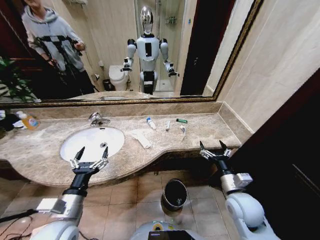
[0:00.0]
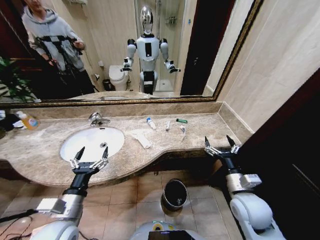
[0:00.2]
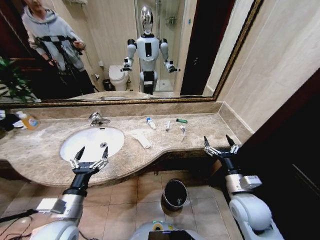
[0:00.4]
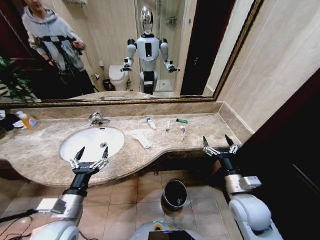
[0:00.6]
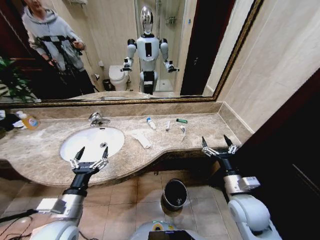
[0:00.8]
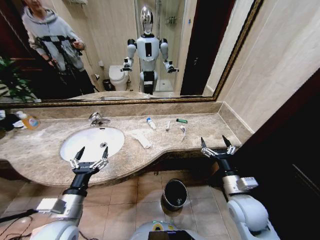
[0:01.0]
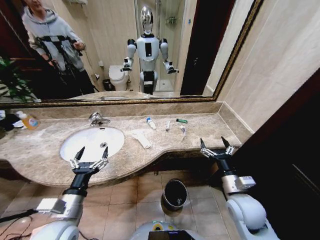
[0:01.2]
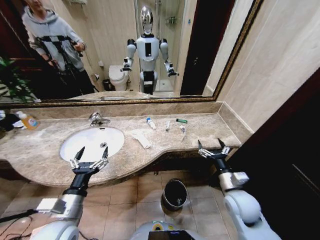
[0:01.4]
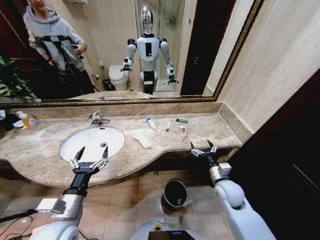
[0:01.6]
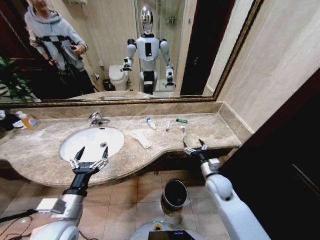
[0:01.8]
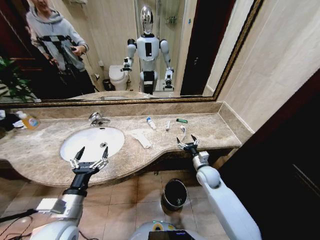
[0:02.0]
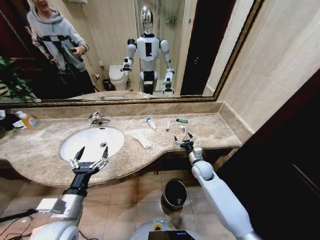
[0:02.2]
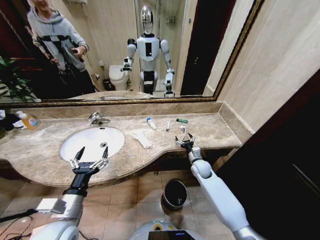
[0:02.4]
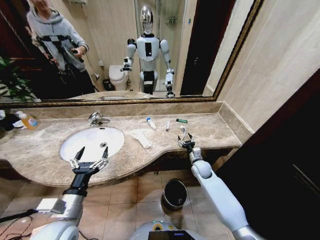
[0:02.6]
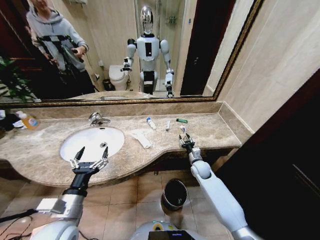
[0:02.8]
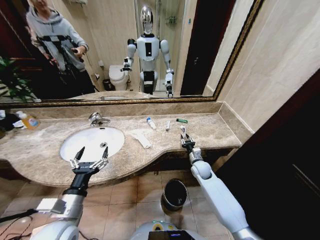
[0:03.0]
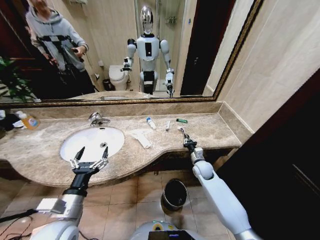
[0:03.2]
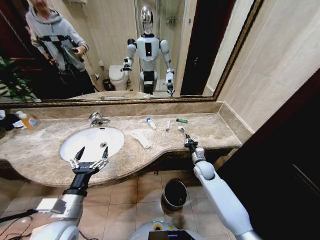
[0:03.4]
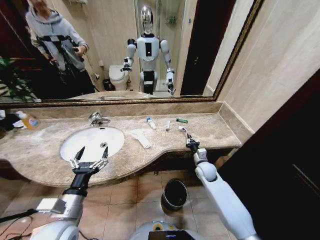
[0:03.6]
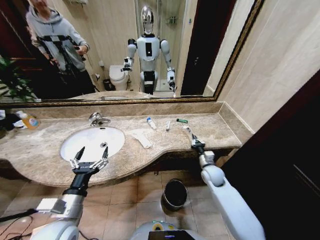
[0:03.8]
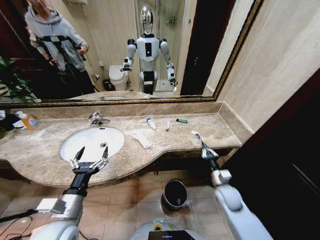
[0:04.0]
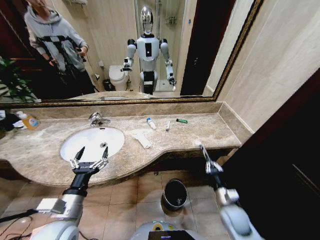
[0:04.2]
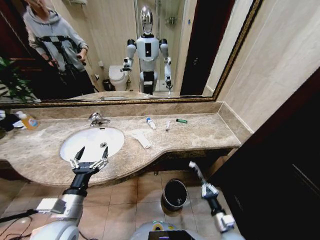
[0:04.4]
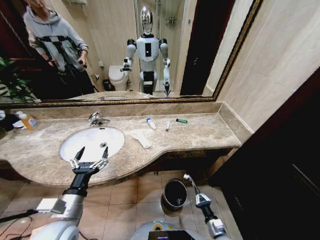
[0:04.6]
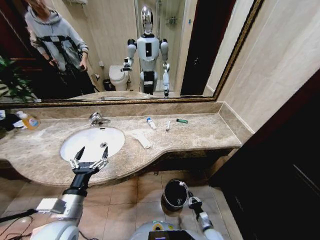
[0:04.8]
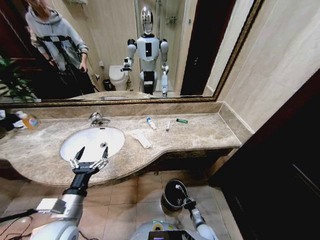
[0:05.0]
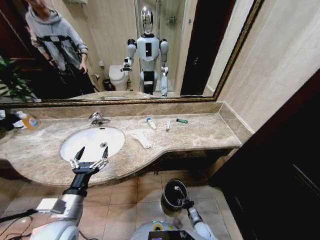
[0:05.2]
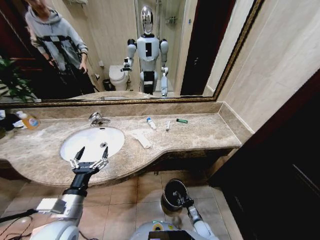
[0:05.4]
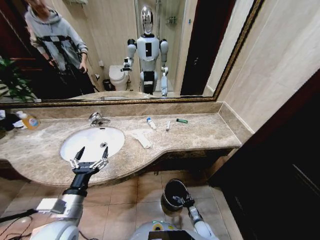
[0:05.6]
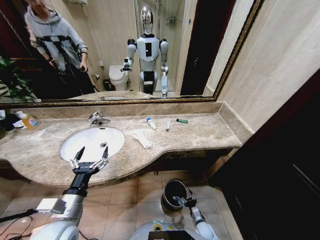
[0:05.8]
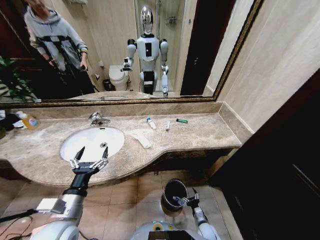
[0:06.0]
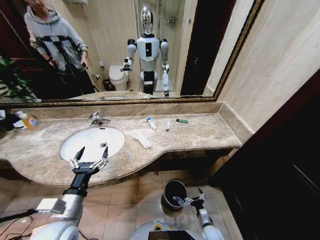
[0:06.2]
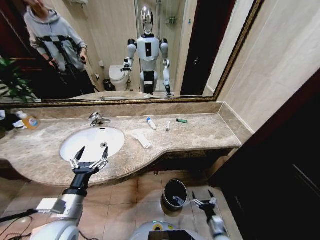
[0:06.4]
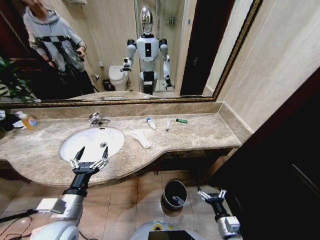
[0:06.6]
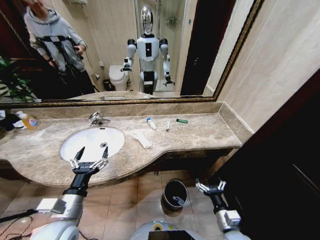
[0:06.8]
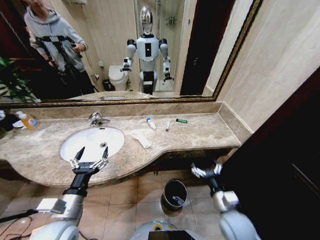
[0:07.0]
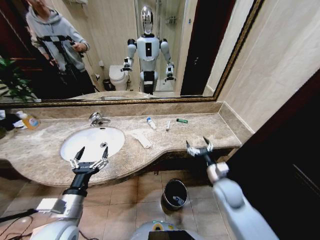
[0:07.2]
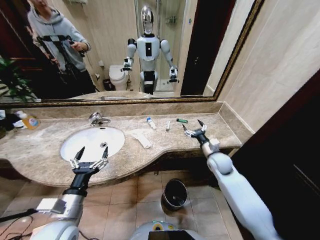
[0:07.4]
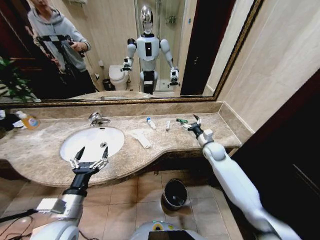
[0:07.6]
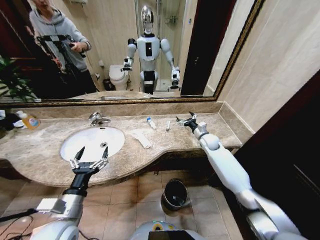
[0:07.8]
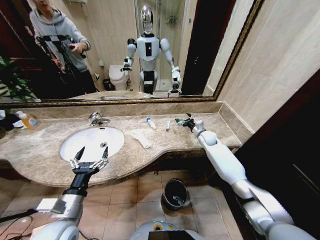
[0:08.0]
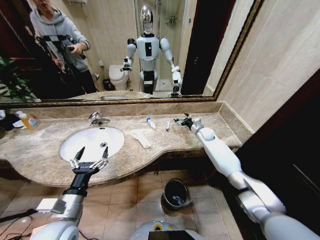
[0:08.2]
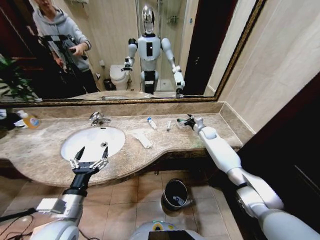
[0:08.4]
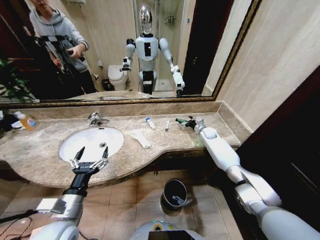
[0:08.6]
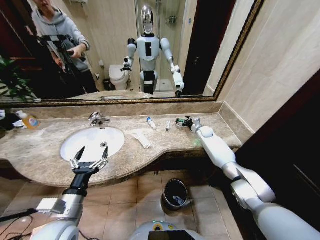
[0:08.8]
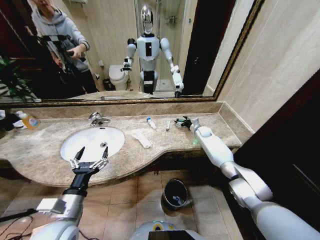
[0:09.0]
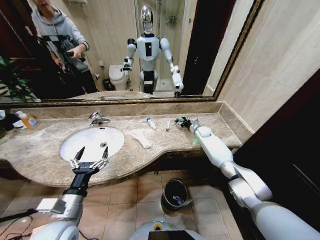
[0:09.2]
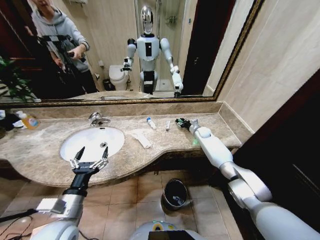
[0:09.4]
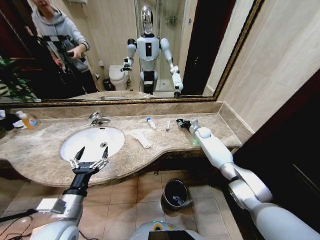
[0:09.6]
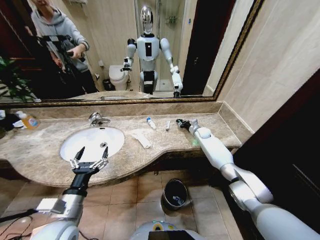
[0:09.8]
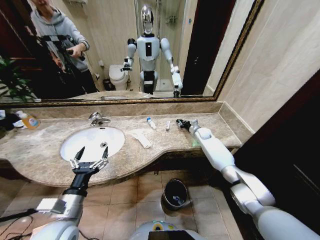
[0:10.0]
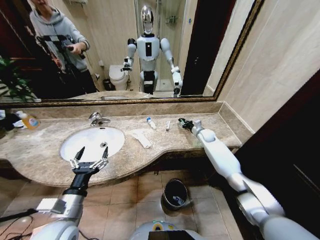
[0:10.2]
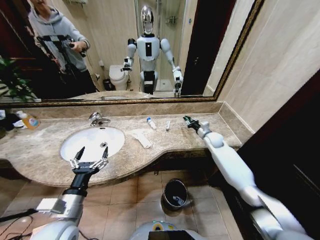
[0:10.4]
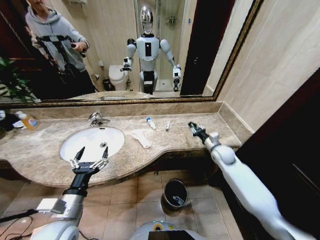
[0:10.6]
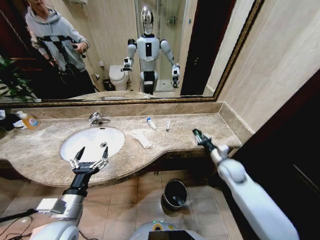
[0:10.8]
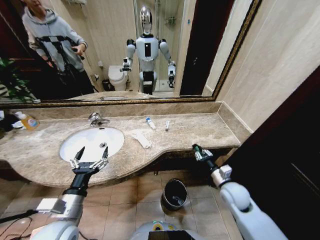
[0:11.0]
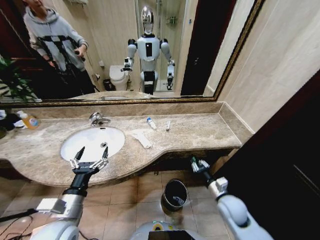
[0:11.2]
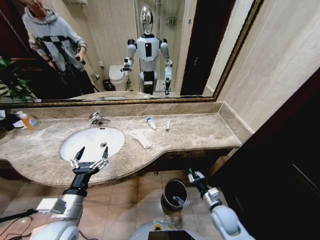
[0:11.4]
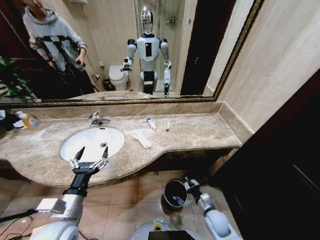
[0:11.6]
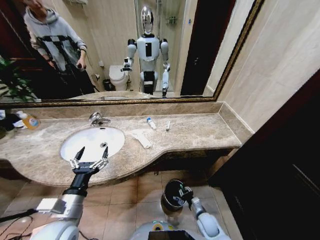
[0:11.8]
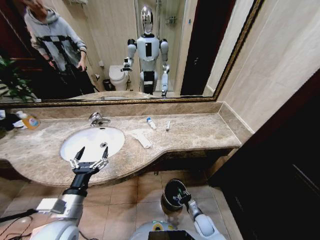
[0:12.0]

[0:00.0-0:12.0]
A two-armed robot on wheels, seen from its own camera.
Task of the whole recording: Pick up the trash from the sink and place it in the trash bin.
0:01.6 to 0:03.0: The right gripper moves forward and downward, roughly 15 cm, and closes.
0:03.0 to 0:04.4: The right gripper moves backward, some 30 cm, and closes its fingers.
0:04.4 to 0:06.0: The right gripper travels downward by about 15 cm, and opens up.
0:06.0 to 0:07.6: The right gripper is displaced upward and forward by roughly 40 cm.
0:07.6 to 0:09.0: The right gripper shifts approximately 15 cm forward.
0:09.0 to 0:10.4: The right gripper heads backward, covering about 10 cm, and closes up.
0:10.4 to 0:12.0: The right gripper heads backward and downward, covering some 40 cm.

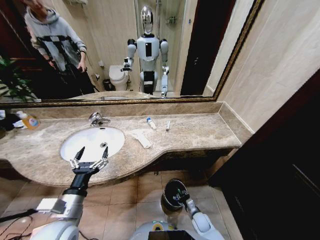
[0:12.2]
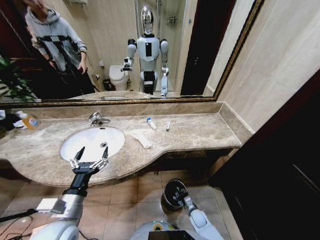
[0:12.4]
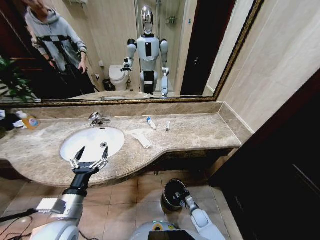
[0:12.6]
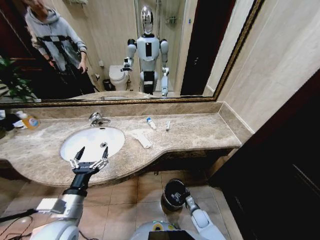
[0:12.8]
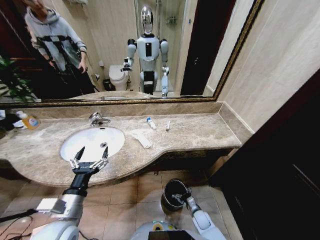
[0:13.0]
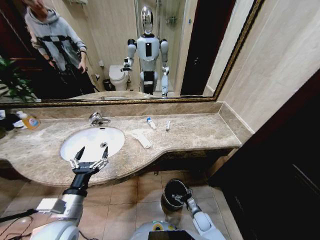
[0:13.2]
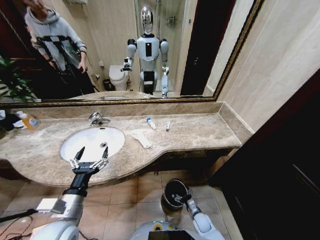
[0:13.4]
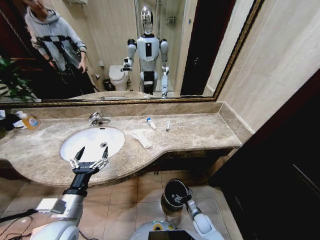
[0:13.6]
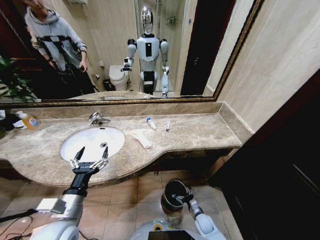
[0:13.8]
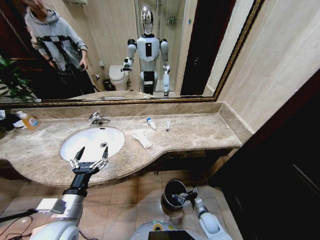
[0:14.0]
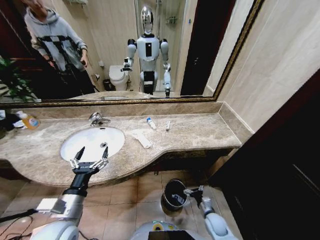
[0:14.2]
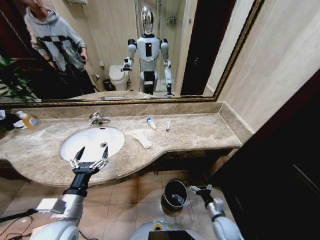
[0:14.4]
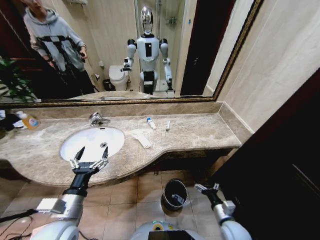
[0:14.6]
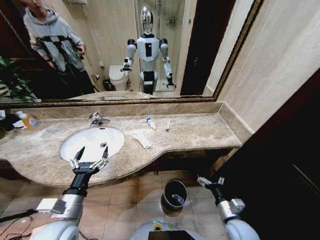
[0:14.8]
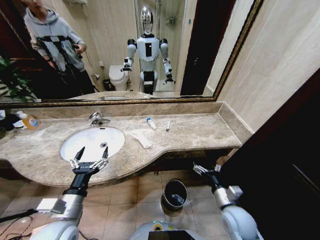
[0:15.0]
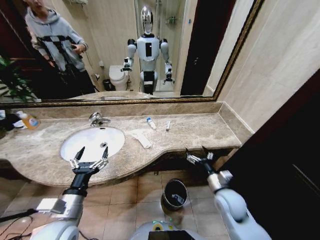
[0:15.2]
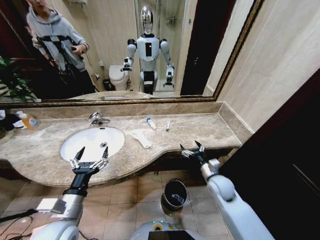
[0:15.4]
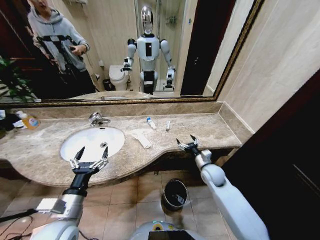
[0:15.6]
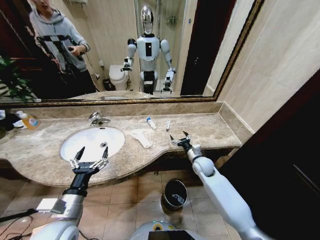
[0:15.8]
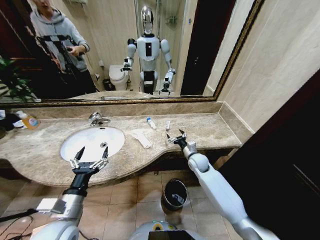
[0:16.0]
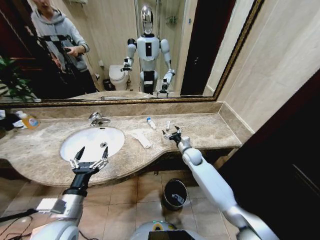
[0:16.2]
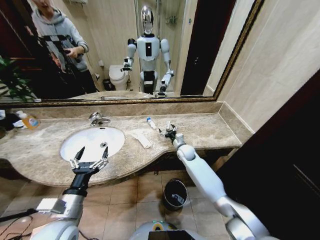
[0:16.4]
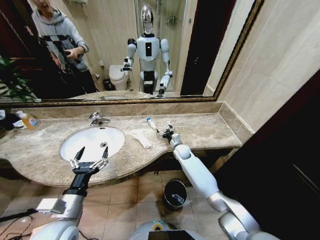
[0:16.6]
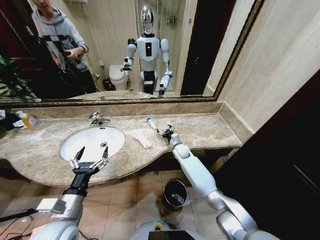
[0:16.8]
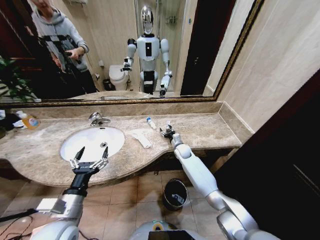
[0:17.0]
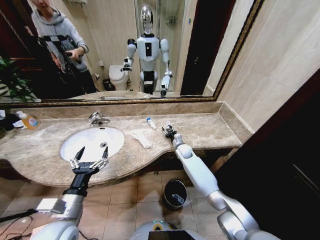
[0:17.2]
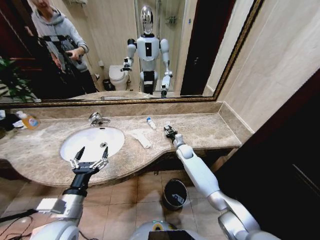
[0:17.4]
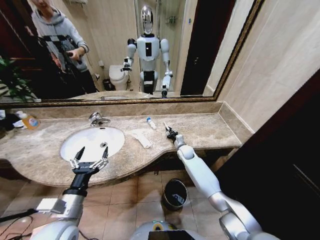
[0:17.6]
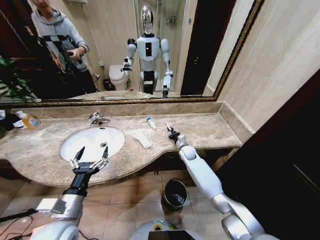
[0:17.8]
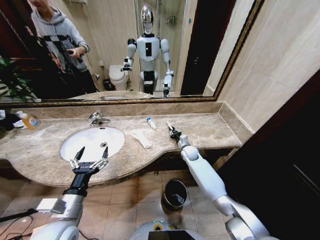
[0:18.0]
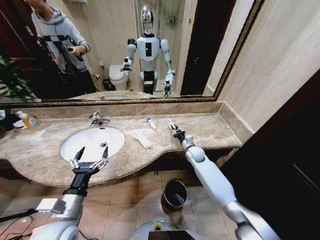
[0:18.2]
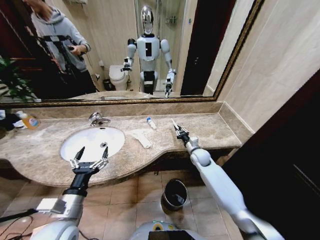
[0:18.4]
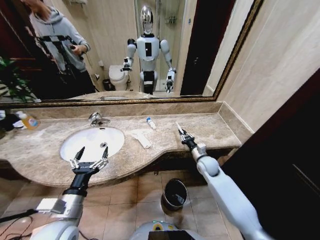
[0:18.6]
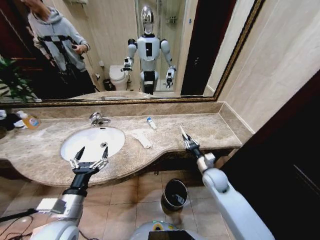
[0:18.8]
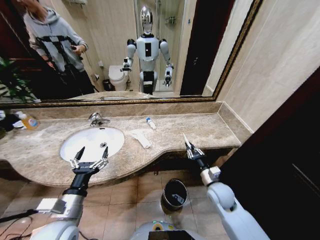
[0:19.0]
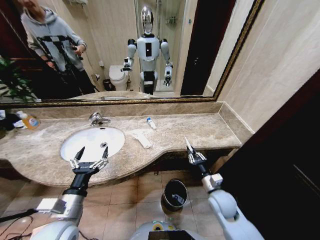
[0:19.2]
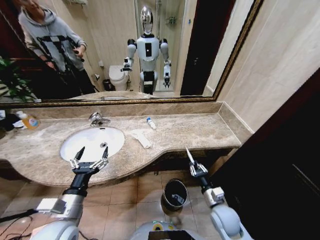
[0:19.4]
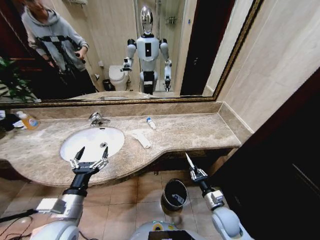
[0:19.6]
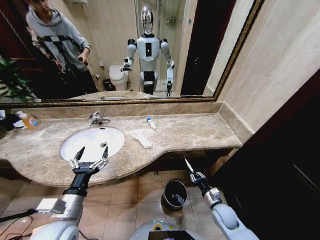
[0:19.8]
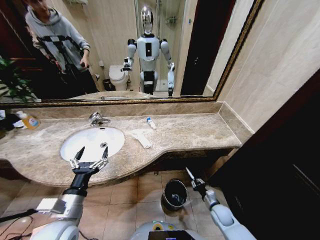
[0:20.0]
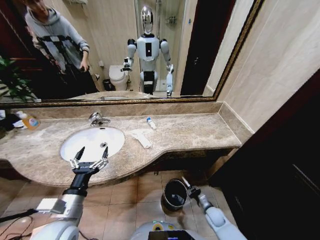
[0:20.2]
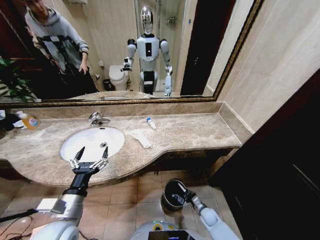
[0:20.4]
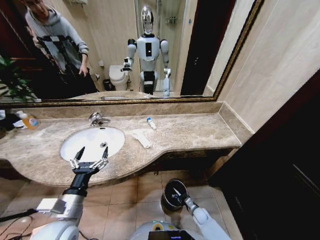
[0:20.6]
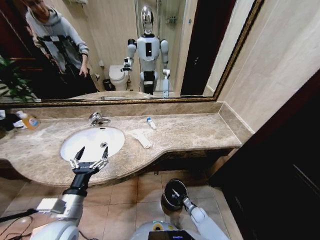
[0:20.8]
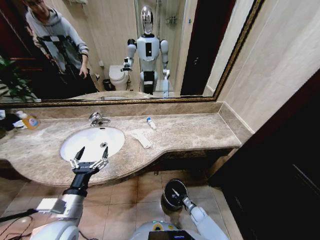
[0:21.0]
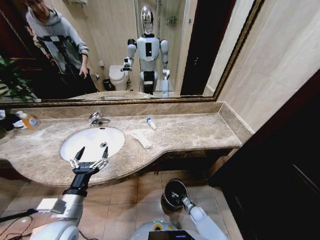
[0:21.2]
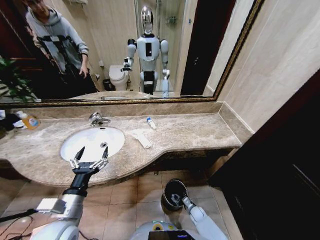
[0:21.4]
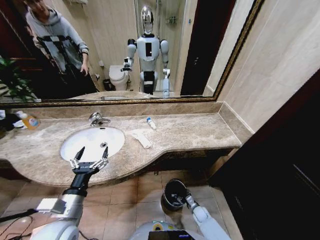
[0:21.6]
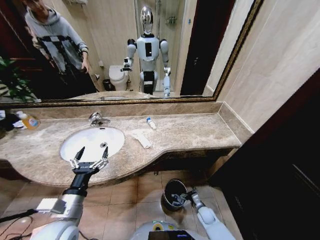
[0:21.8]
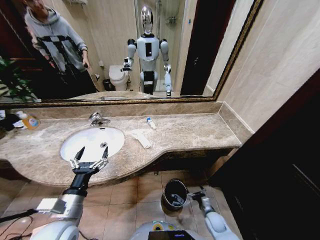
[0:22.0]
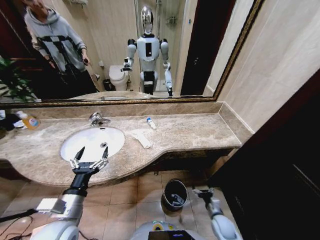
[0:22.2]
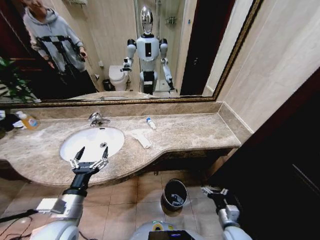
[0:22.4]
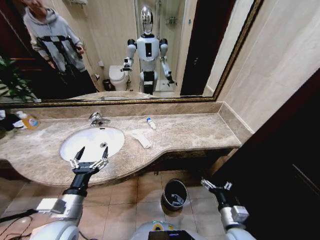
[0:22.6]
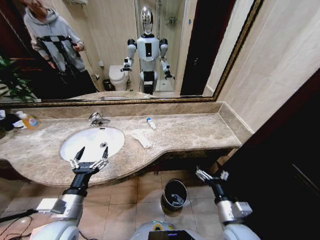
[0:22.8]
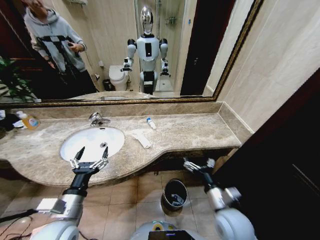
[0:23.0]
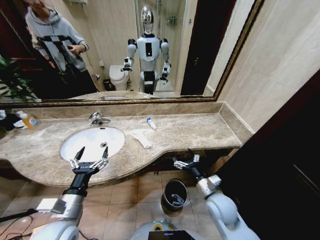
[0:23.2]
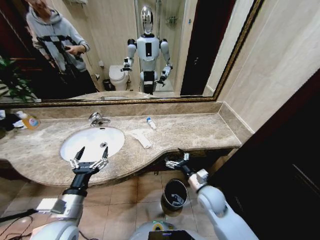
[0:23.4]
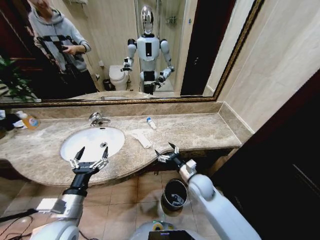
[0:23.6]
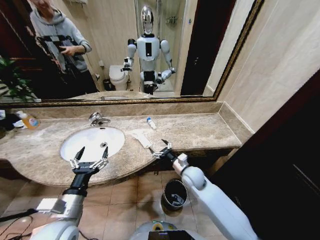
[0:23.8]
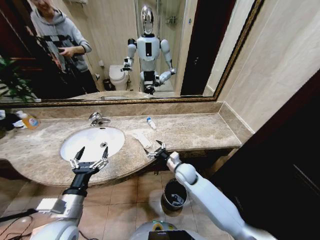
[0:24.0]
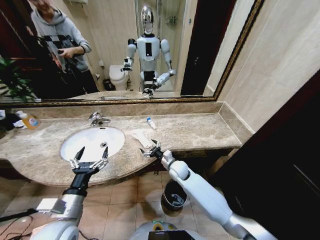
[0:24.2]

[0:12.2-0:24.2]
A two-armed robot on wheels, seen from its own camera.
Task of the whole recording: Pick up the trash from the sink and place it in the trash bin.
0:12.2 to 0:13.8: The right gripper opens.
0:13.8 to 0:15.2: The right gripper is displaced upward by approximately 30 cm.
0:15.2 to 0:16.6: The right gripper shifts about 30 cm forward and to the left.
0:16.6 to 0:18.2: The right gripper shifts approximately 5 cm to the right, and closes.
0:18.2 to 0:19.8: The right gripper is displaced backward by about 25 cm.
0:19.8 to 0:21.2: The right gripper moves downward, about 20 cm.
0:21.2 to 0:22.6: The right gripper travels upward and backward by some 30 cm, and opens up.
0:22.6 to 0:24.2: The right gripper is displaced forward and to the left by about 30 cm.
